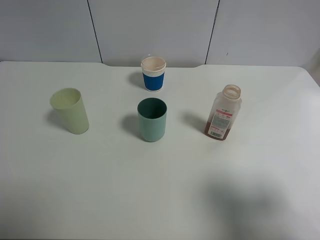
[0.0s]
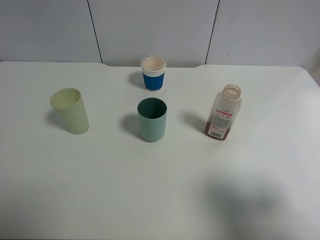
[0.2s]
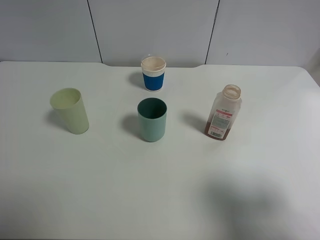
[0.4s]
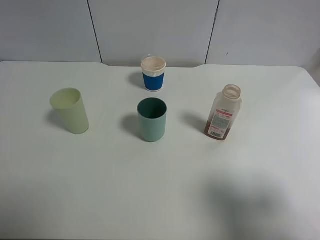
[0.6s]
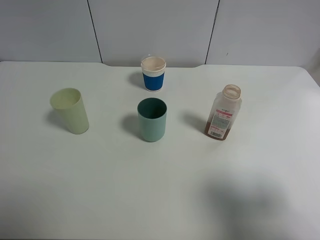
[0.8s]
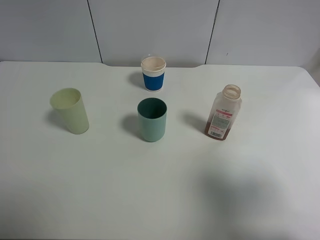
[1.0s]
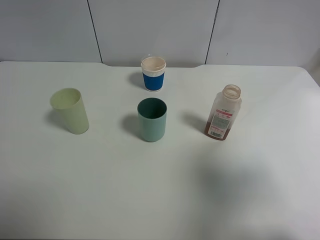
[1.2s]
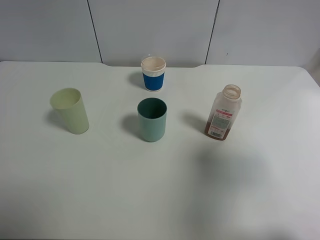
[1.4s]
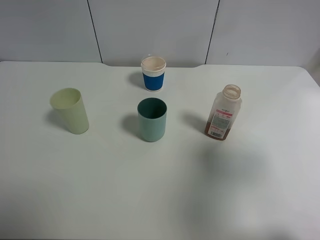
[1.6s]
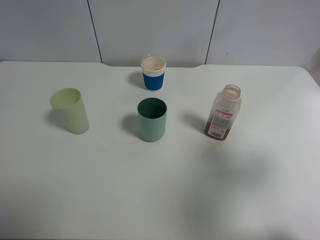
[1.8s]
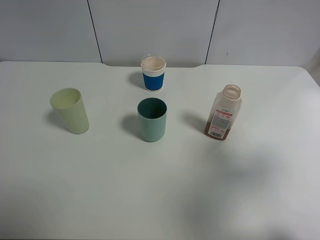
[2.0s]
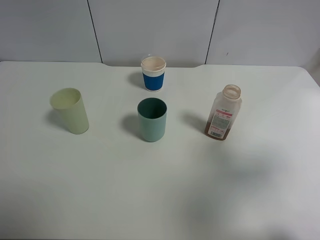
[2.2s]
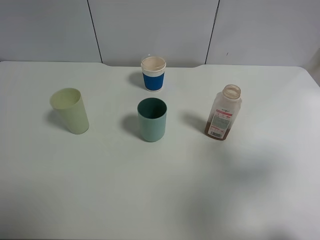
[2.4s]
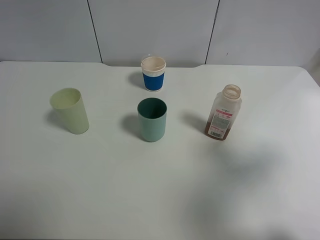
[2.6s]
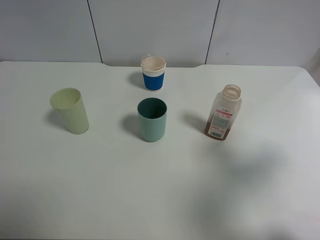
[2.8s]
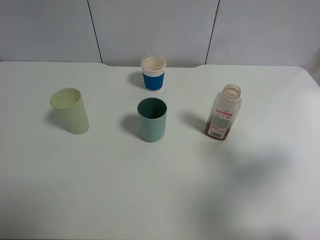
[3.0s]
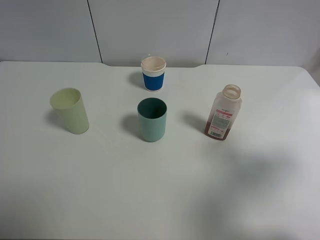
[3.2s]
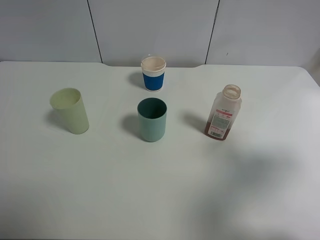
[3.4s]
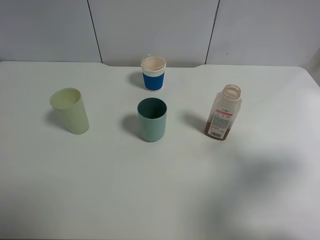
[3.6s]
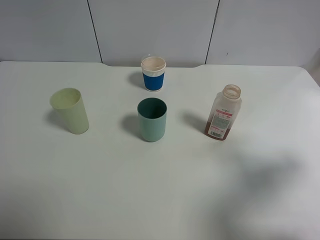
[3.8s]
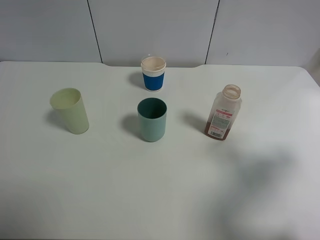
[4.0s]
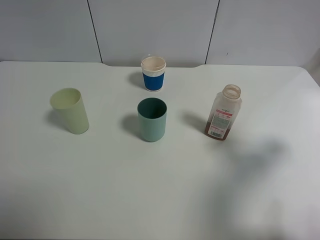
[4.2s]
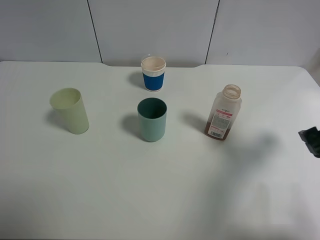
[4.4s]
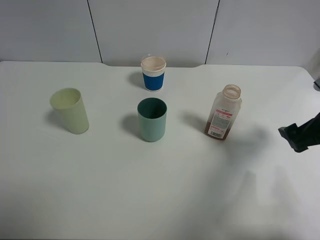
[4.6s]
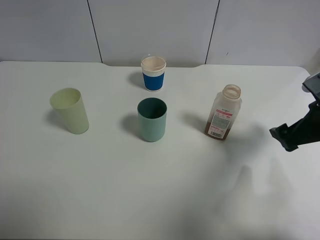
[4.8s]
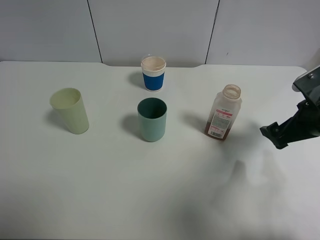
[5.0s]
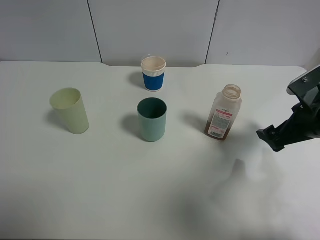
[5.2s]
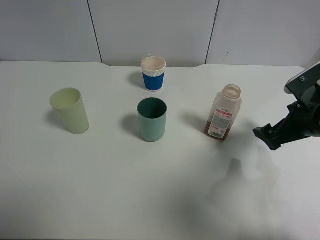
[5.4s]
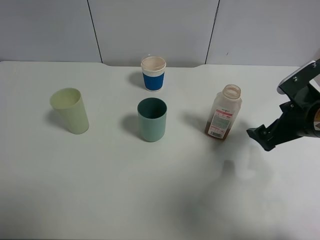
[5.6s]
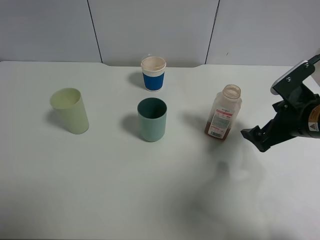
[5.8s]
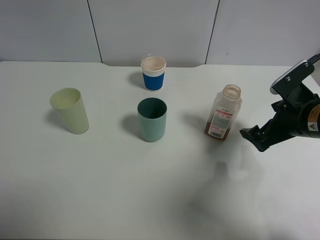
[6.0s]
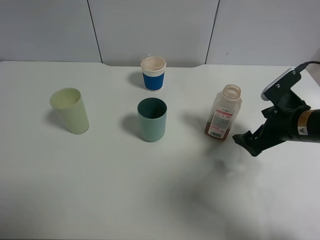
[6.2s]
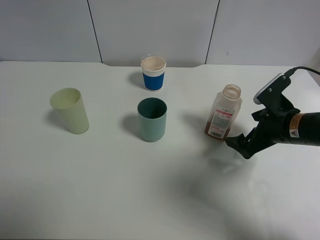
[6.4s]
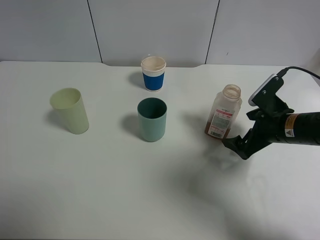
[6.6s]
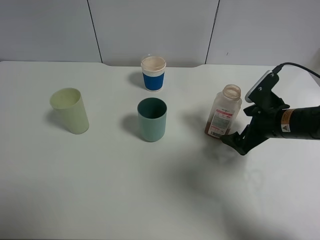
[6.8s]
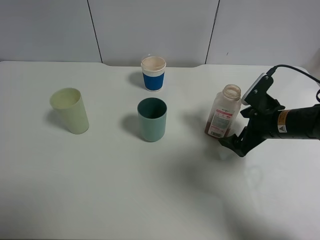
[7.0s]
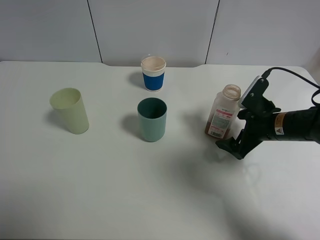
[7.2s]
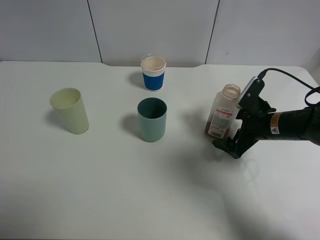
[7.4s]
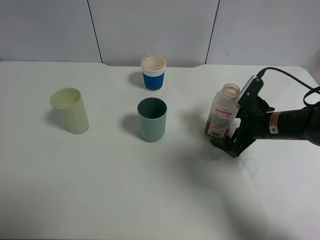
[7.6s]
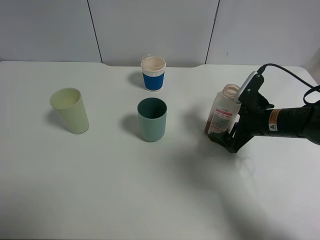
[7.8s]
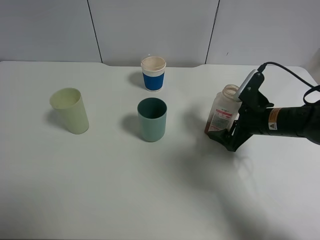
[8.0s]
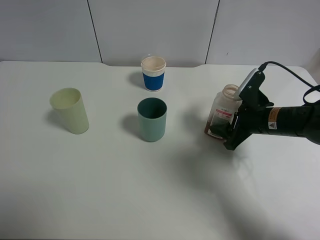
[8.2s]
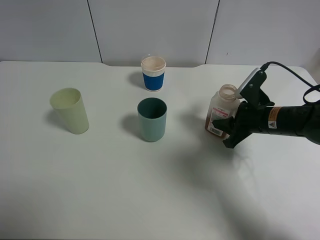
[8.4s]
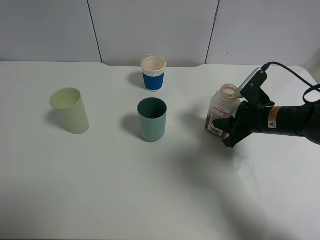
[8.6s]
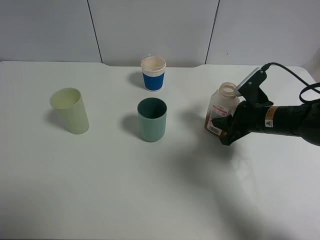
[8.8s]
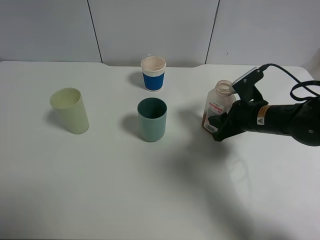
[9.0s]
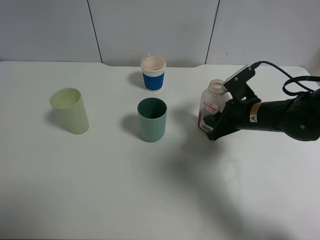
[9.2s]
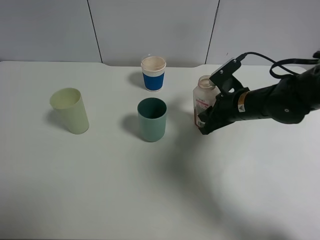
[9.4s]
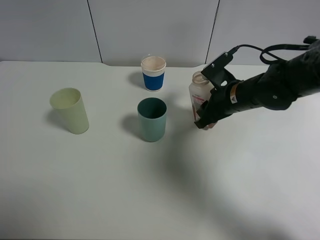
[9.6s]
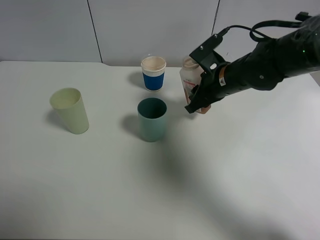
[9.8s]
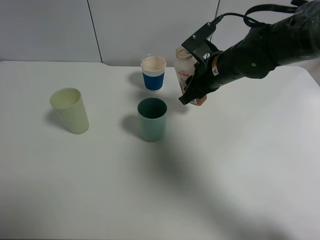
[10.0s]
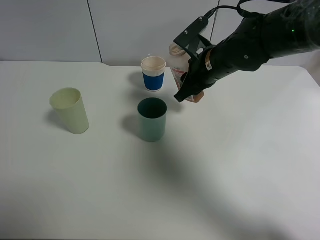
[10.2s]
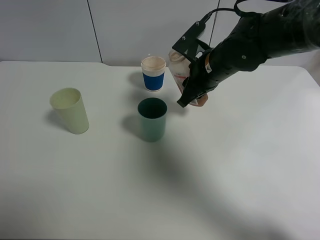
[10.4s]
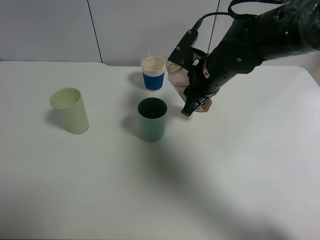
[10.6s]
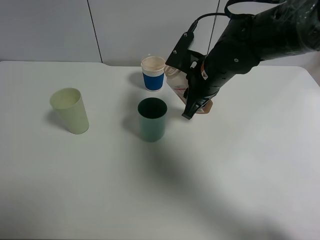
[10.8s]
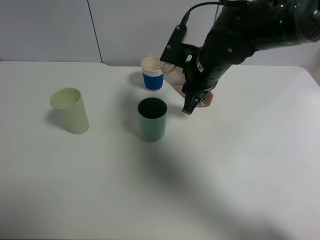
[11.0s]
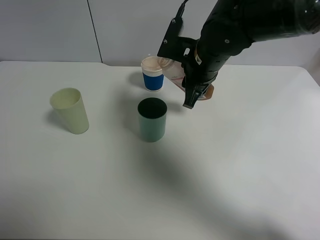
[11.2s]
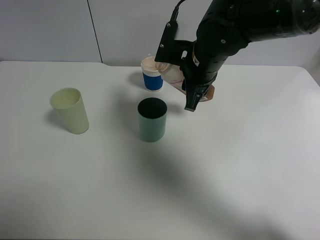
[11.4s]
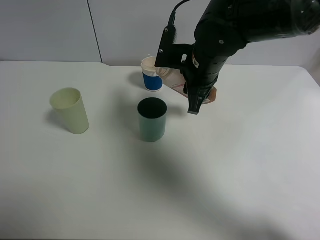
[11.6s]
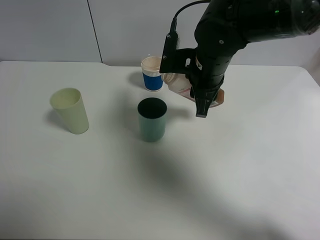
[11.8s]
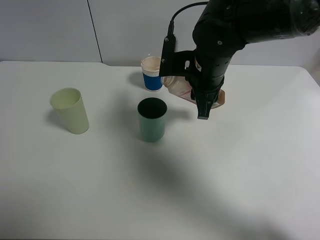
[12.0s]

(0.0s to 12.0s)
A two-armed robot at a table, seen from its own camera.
Task of the whole recording: use a clamp to hold the bottle of the drink, pour the beverage into a random cup, then clamp the cup containing the drink and pour the drink into another random cup.
Step, 0.0s - 9.8s: Pick up the drink bottle with right gripper.
0.0s - 1.6s: The right gripper travels forward and upward by roughly 10 cm.
1.6s - 3.0s: The right gripper heads downward, covering some 5 cm.
3.0s - 4.4s: The right gripper shifts some 10 cm downward and forward.
4.4s - 6.0s: The right gripper travels forward and to the left by approximately 10 cm.
6.0s - 7.6s: The right gripper shifts about 5 cm downward.
7.6s - 9.0s: The right gripper closes.
9.0s - 10.4s: The right gripper moves to the left, upward and forward, approximately 15 cm.

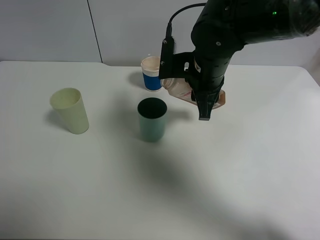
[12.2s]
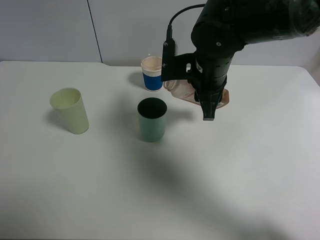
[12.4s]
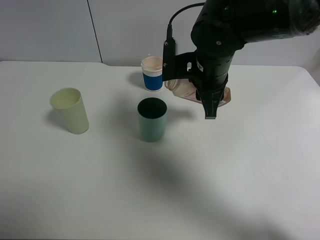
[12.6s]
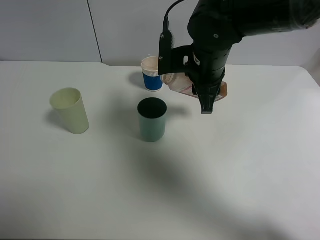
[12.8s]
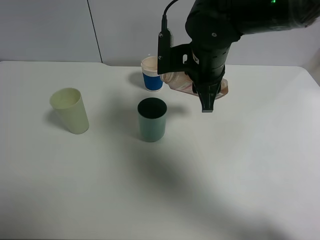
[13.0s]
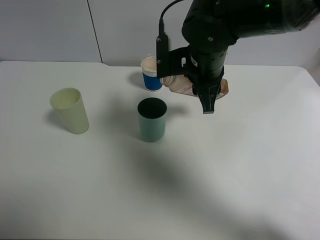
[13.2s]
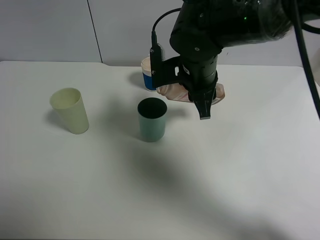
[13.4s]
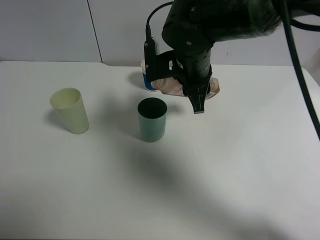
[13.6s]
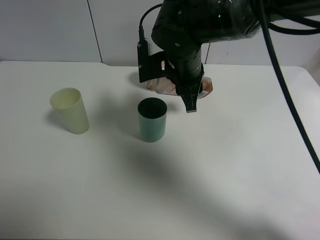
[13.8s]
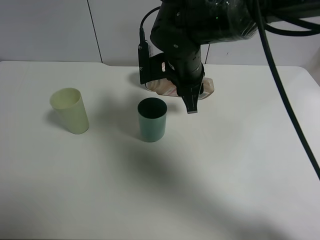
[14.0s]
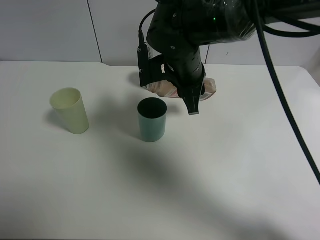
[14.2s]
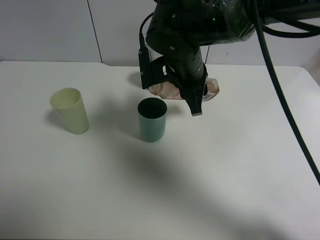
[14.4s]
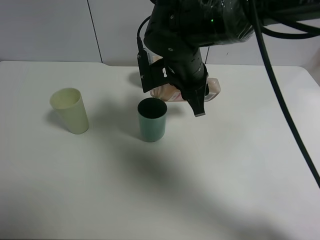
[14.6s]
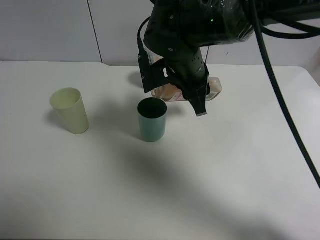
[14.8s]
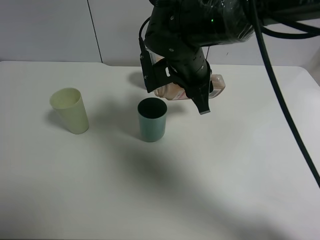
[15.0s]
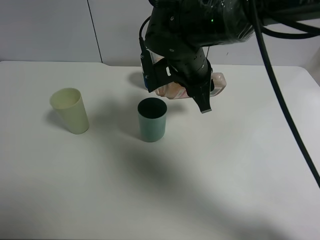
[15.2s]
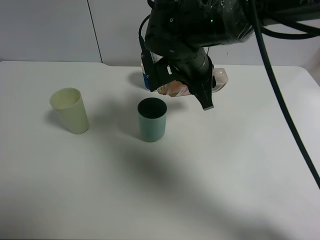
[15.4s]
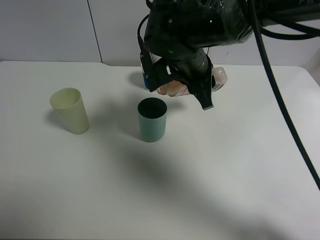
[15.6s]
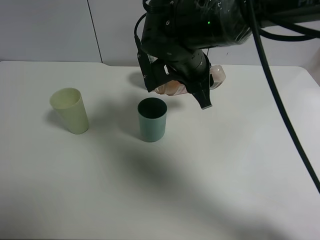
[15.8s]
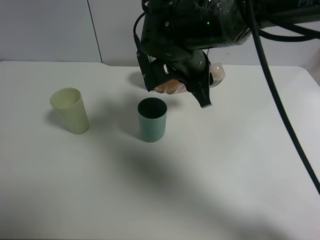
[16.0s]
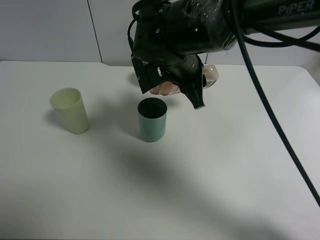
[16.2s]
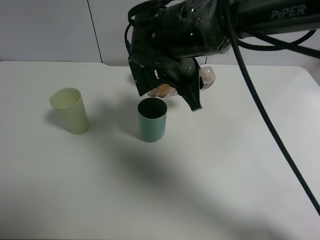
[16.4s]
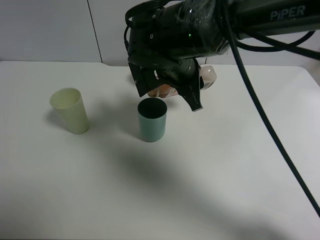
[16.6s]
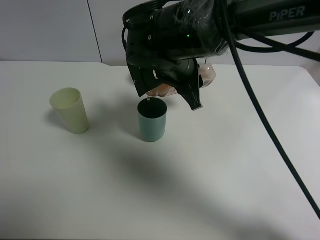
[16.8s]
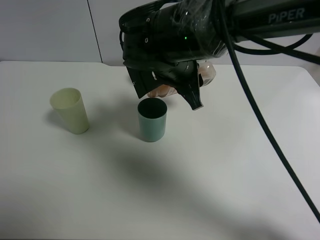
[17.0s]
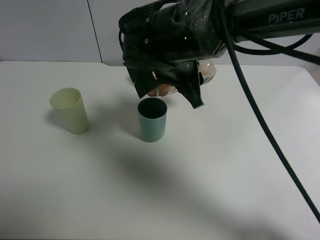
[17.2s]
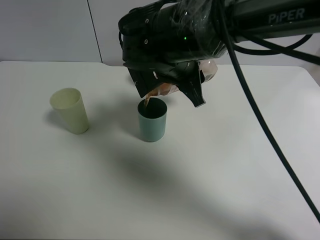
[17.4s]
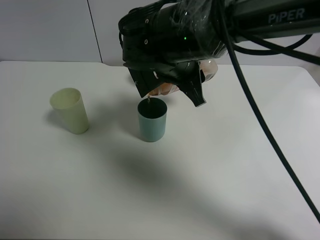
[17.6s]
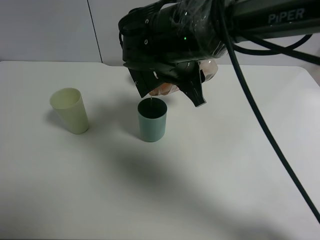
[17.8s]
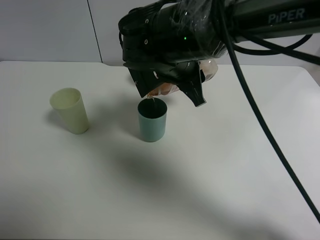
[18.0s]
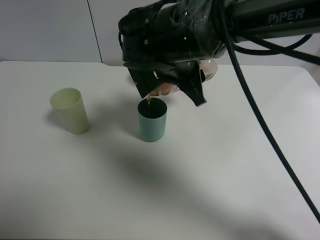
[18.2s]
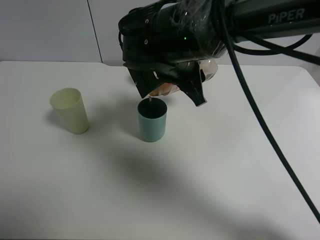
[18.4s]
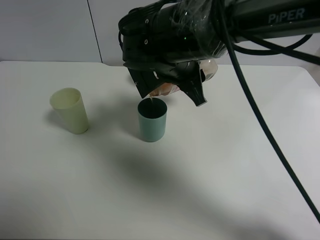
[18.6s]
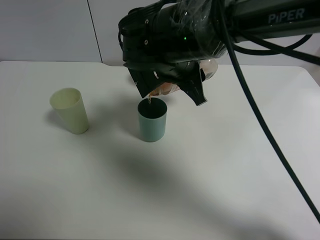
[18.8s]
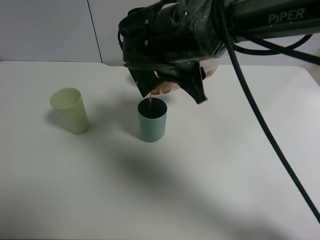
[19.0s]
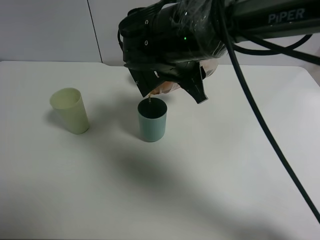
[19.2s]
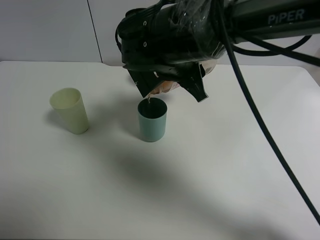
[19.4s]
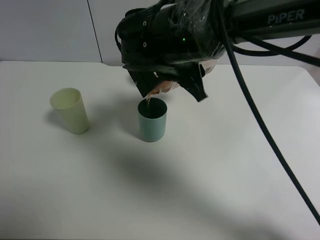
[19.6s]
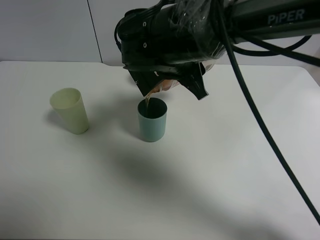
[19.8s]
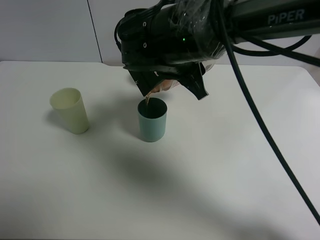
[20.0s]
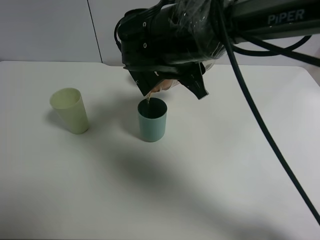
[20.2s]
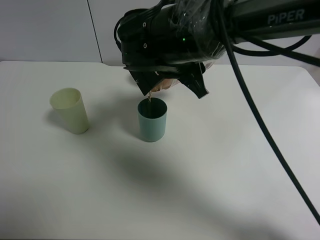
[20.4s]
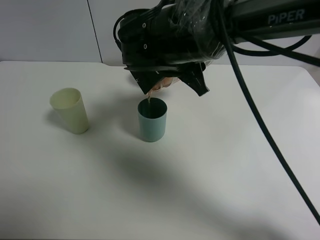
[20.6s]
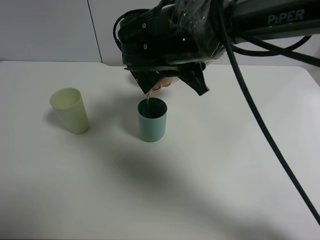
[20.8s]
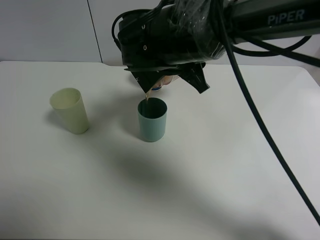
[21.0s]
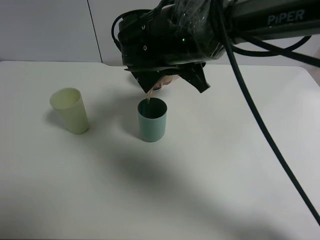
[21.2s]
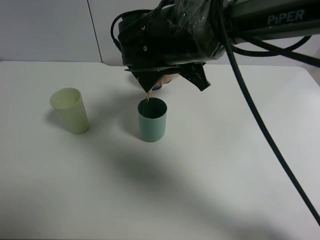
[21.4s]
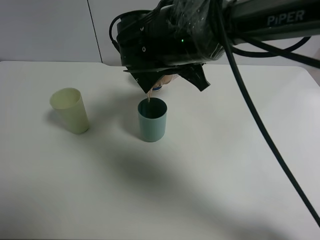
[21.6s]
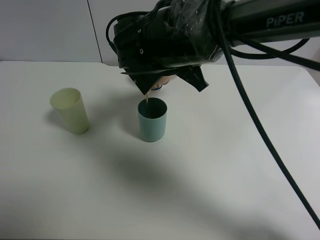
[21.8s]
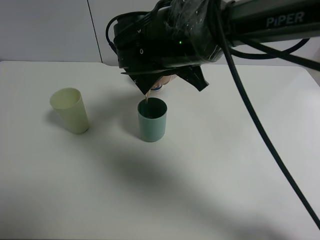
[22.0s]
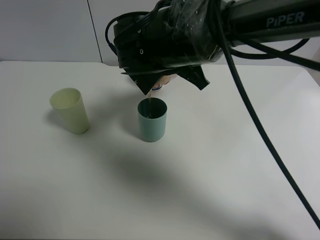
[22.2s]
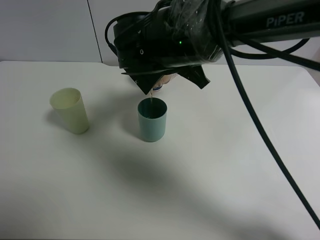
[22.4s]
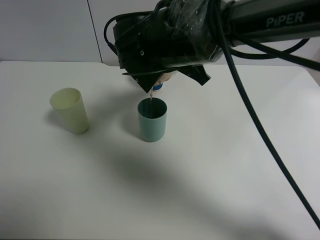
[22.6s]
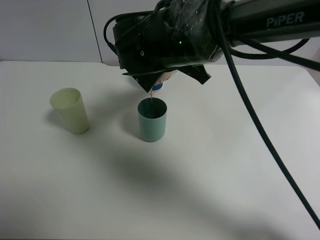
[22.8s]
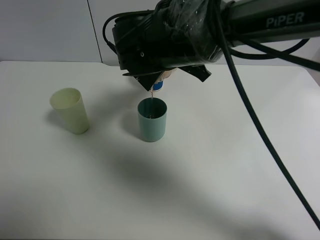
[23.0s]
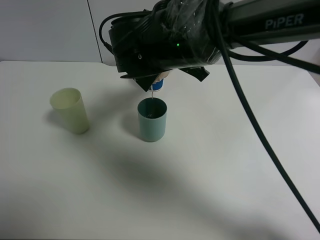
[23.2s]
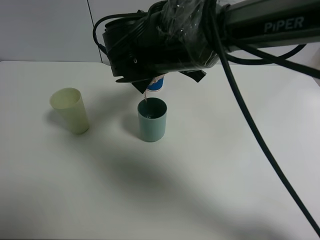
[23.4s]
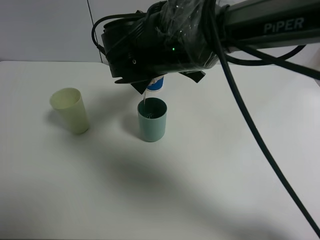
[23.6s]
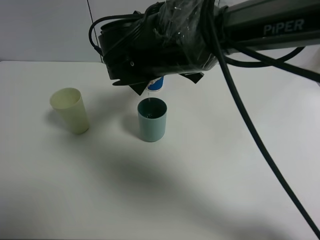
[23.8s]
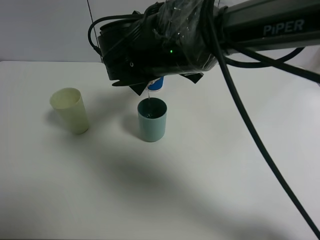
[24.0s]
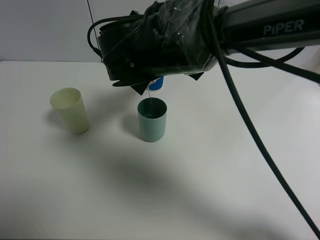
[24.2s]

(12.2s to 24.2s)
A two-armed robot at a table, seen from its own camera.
Task of the whole recording: use a clamp to hold the bottle of the drink, pour the beverage into a random cup, then clamp the cup containing the drink and pour the drink into another random cup.
12.2s - 13.8s: The grippers stay close to where they were, moving slightly.
13.8s - 16.6s: The grippers make only small movements.
16.6s - 19.8s: The grippers move only a little.
19.8s - 21.2s: Both grippers stay about where they are.
21.2s - 24.2s: There are only small adjustments of the grippers.
